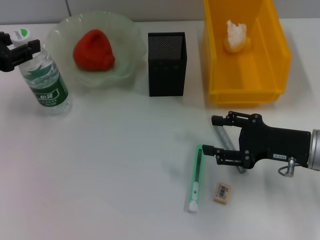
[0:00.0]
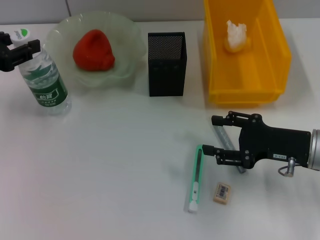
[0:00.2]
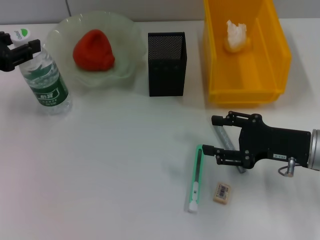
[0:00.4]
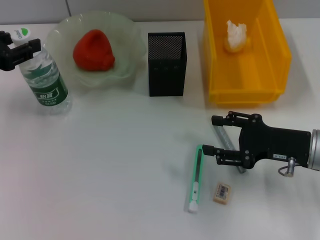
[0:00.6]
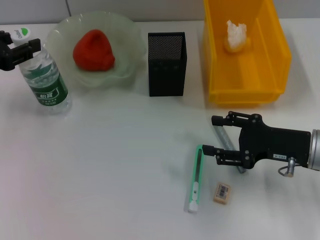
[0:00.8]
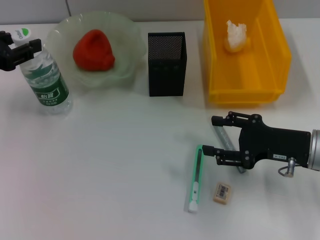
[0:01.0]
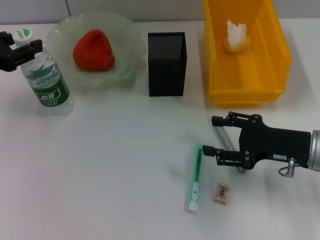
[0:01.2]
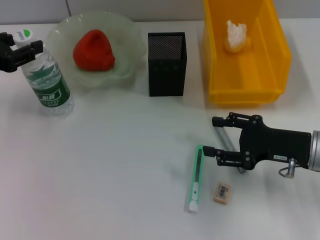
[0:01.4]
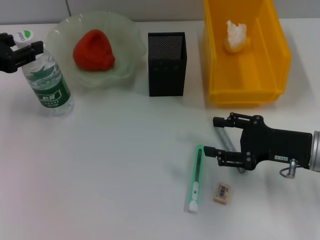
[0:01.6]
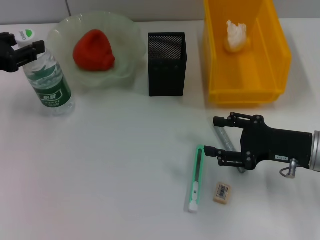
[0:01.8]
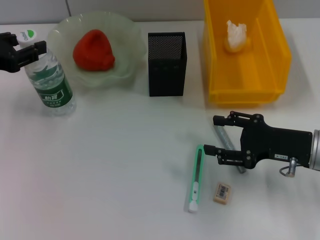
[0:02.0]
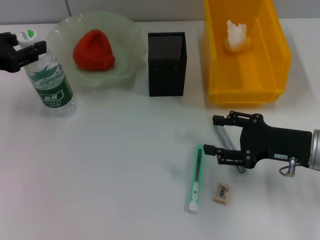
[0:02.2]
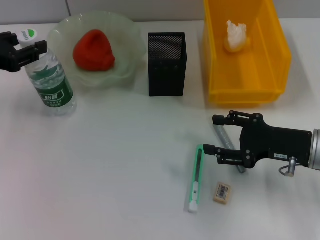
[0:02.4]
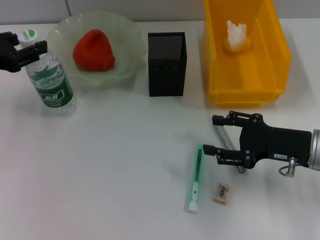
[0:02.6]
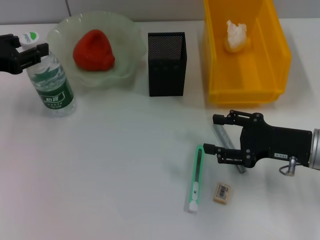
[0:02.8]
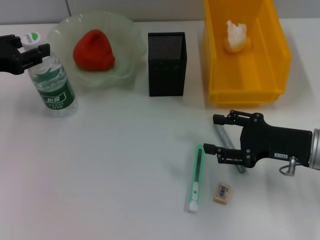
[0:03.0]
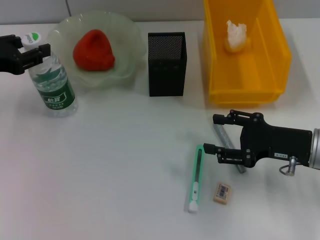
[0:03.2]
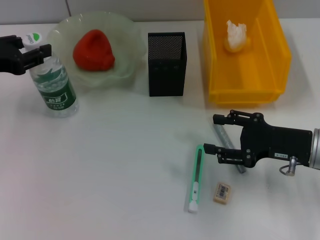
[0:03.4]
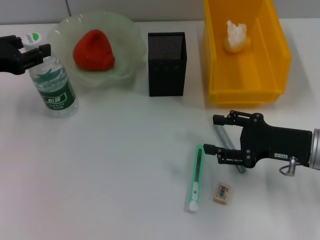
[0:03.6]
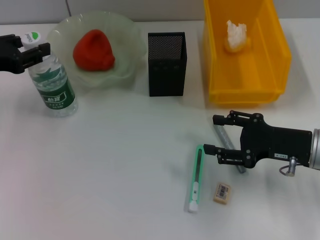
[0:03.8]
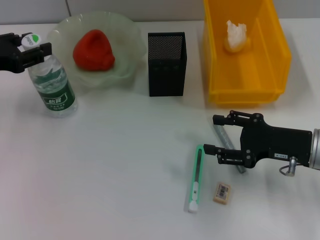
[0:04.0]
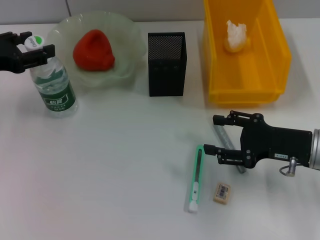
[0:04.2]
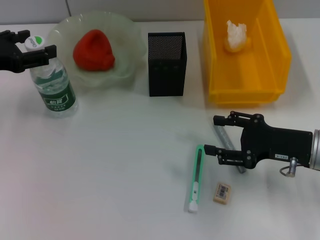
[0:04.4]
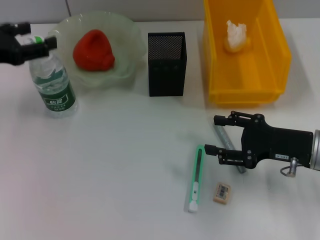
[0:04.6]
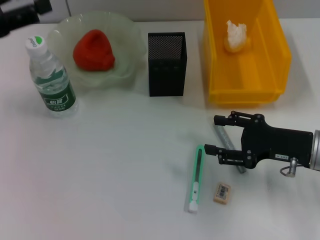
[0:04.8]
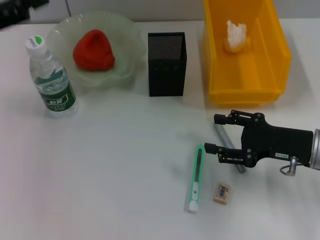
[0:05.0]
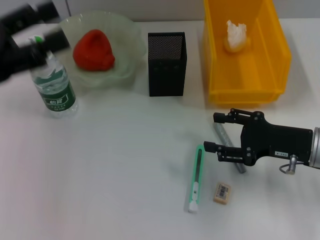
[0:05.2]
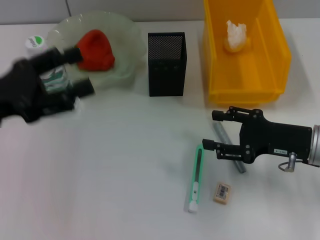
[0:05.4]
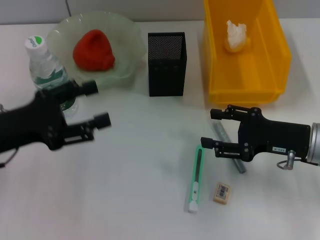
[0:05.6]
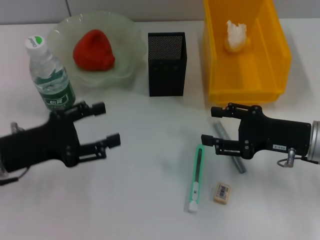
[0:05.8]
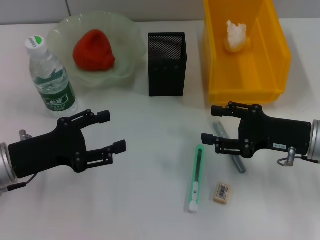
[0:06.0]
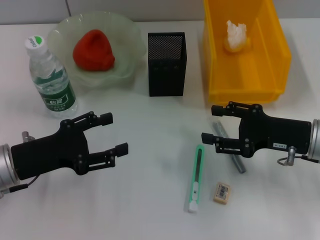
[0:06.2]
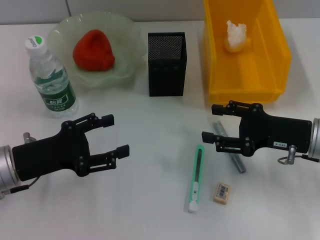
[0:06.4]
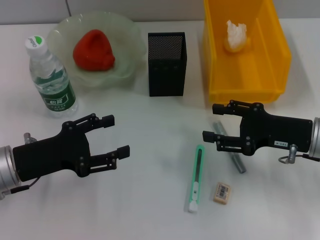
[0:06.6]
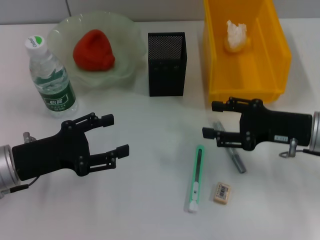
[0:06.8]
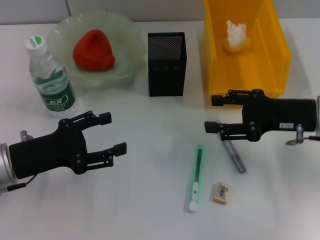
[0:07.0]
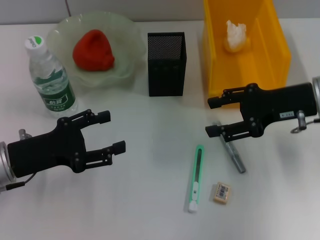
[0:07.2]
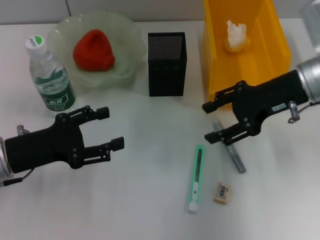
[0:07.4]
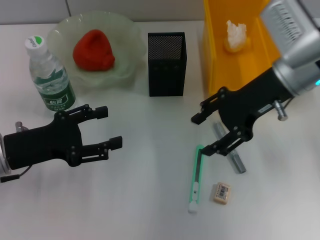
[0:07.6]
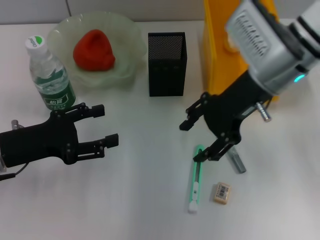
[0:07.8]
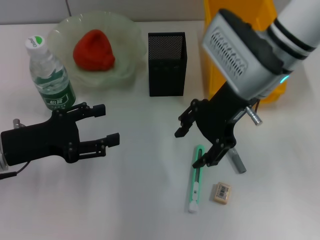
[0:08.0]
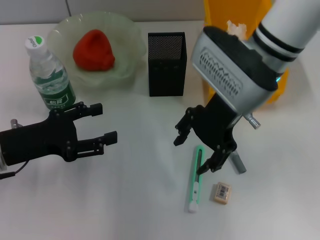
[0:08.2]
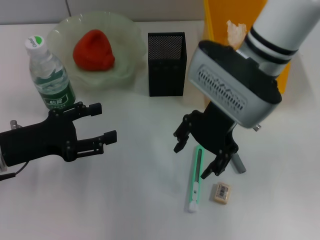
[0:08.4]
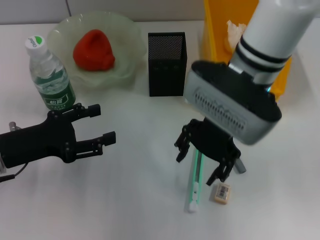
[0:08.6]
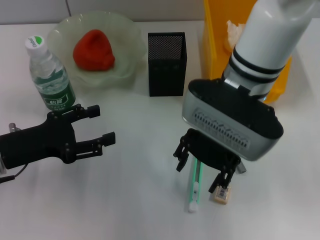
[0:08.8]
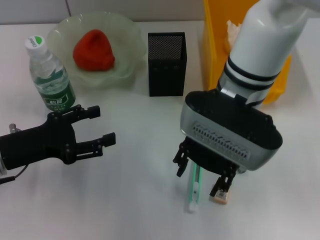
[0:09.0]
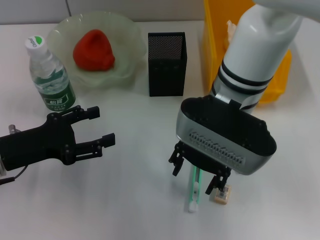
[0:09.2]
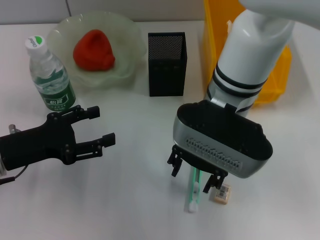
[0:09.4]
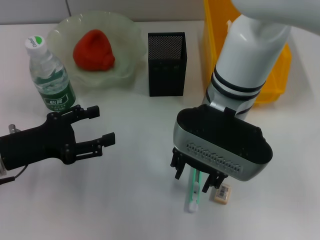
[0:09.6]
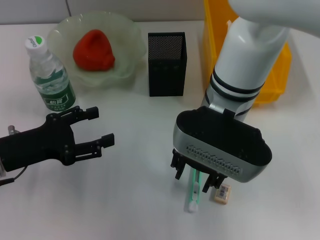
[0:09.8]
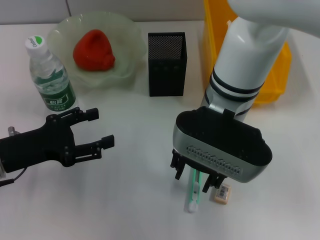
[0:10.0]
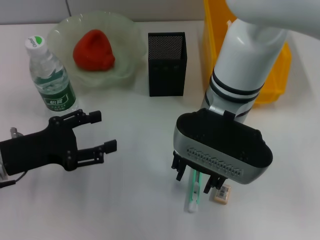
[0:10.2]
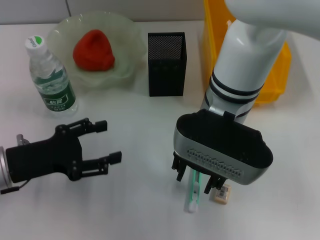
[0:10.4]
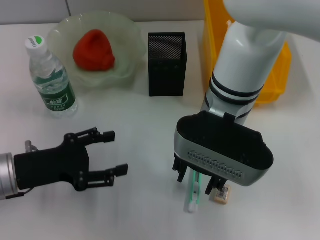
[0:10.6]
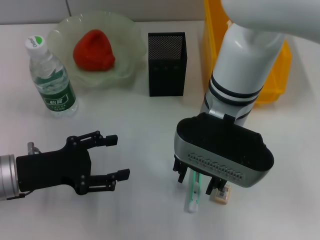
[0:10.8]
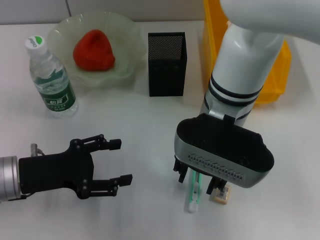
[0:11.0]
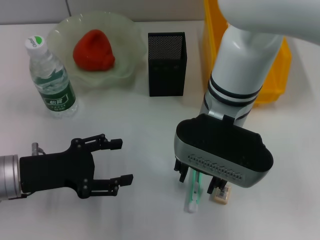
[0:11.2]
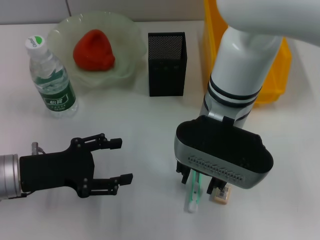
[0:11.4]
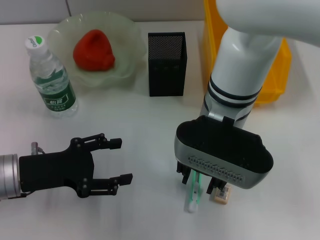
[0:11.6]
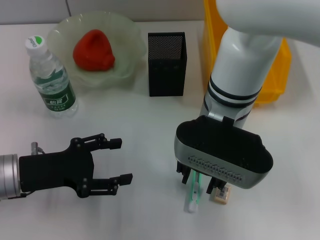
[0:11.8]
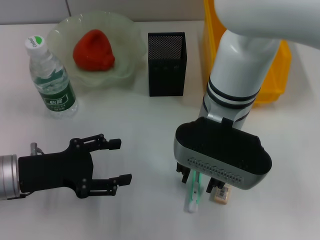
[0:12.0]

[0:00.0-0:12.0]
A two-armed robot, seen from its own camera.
Step, 0:00.0 to 0:04.4: Place the water bottle on the table with the left hand.
0:00.0 to 0:03.0: Both grippers stay put.
0:03.0 to 0:04.4: The left gripper opens its fingers.
0:04.4 to 0:06.0: The left gripper shifts approximately 15 cm downward, backward and to the right.
0:06.0 to 0:07.6: The right gripper is displaced upward, forward and to the left by approximately 15 cm.
0:07.6 to 0:09.0: The right gripper goes some 10 cm to the left.
0:10.4 to 0:12.0: The grippers move only a little.

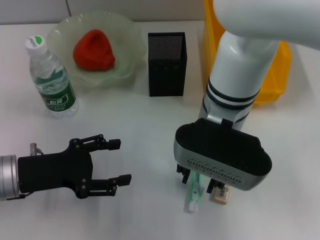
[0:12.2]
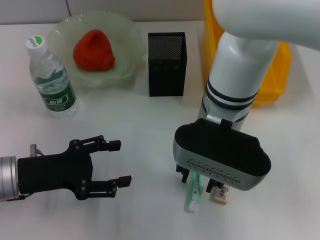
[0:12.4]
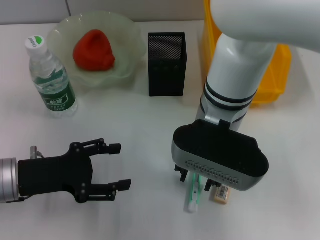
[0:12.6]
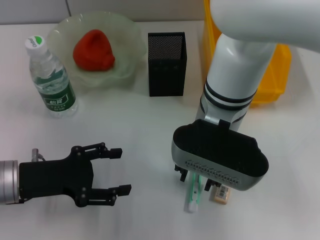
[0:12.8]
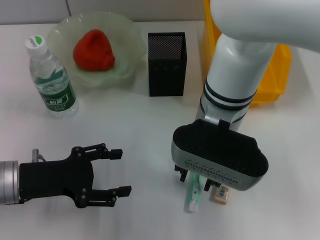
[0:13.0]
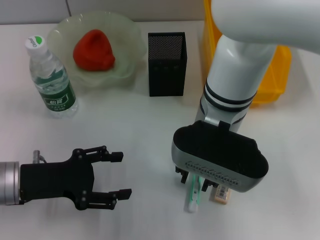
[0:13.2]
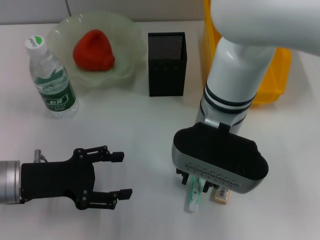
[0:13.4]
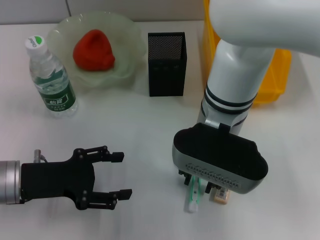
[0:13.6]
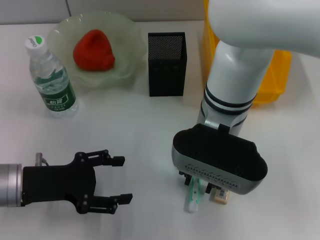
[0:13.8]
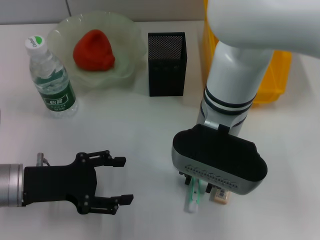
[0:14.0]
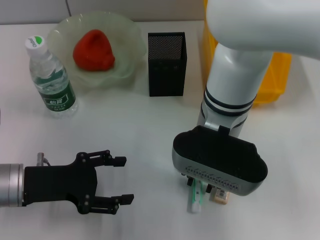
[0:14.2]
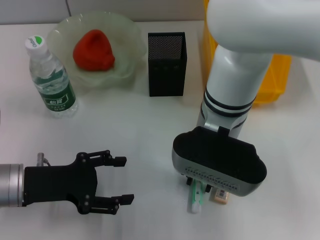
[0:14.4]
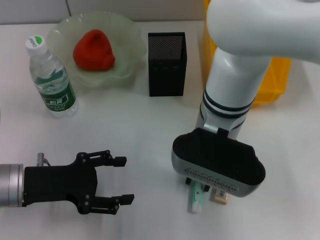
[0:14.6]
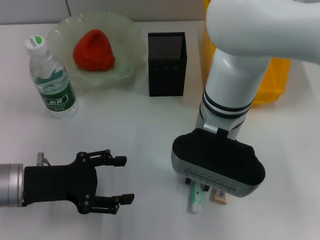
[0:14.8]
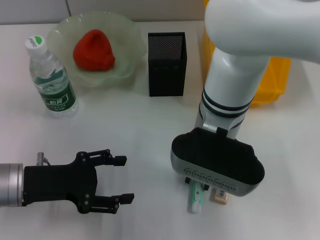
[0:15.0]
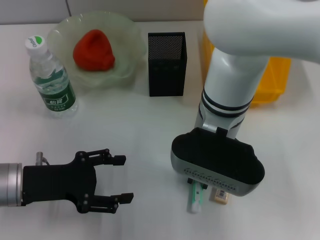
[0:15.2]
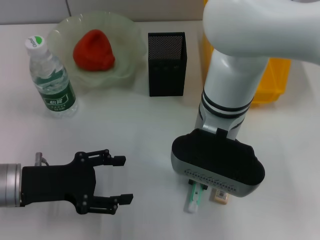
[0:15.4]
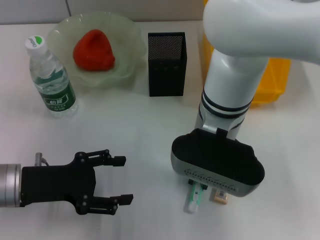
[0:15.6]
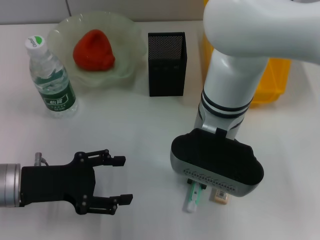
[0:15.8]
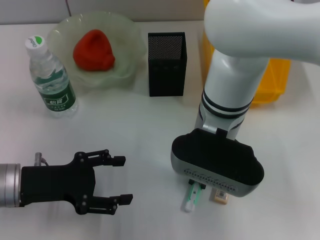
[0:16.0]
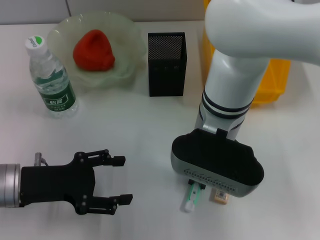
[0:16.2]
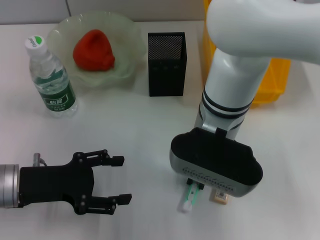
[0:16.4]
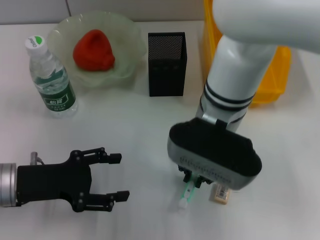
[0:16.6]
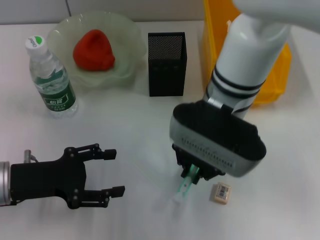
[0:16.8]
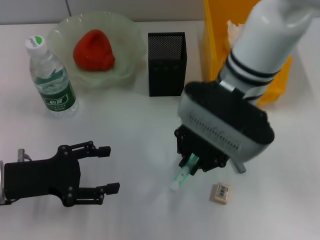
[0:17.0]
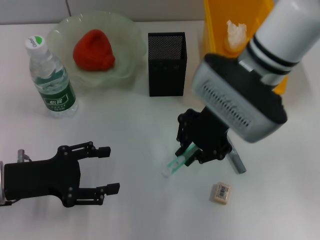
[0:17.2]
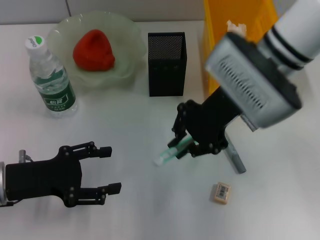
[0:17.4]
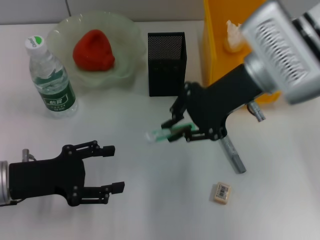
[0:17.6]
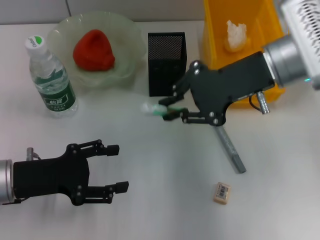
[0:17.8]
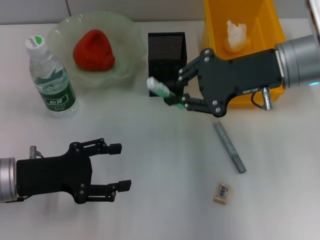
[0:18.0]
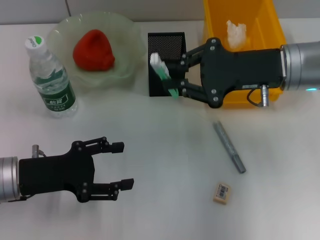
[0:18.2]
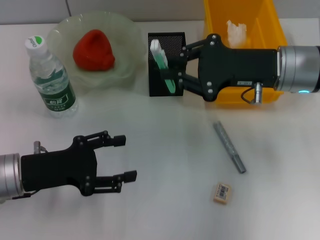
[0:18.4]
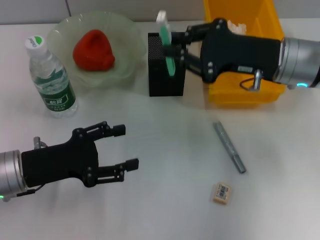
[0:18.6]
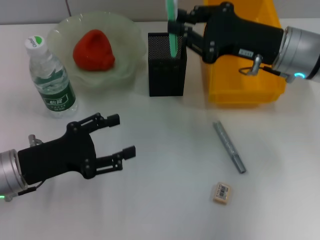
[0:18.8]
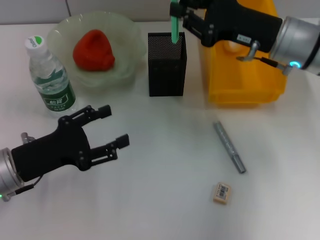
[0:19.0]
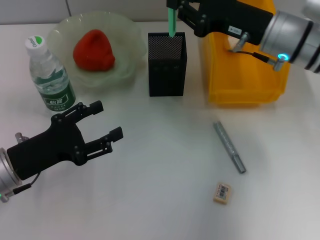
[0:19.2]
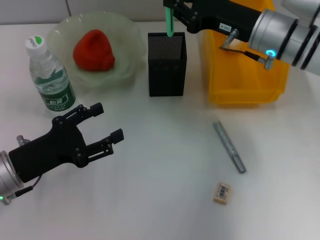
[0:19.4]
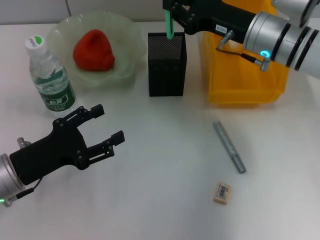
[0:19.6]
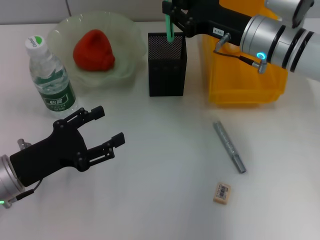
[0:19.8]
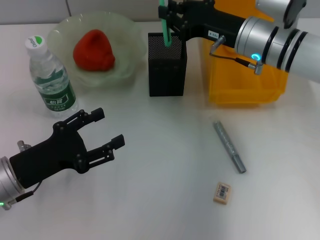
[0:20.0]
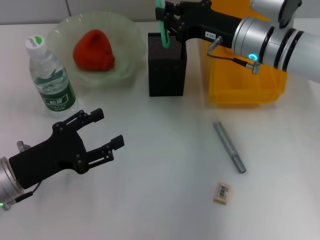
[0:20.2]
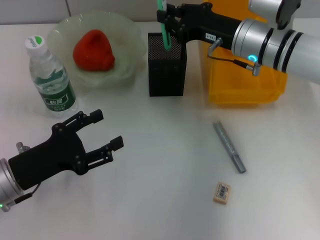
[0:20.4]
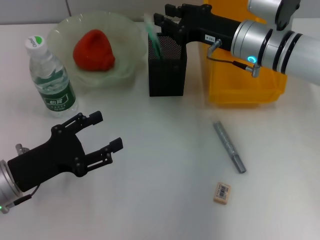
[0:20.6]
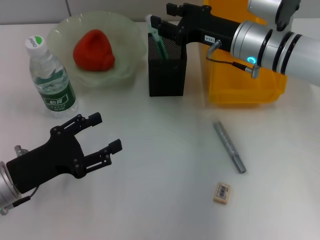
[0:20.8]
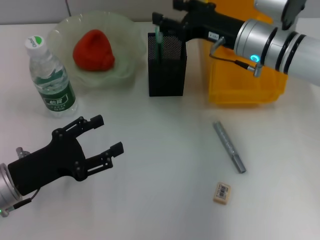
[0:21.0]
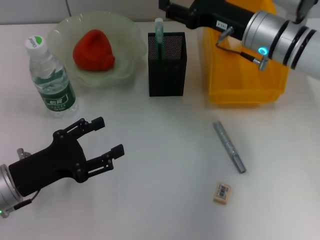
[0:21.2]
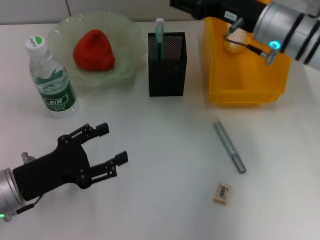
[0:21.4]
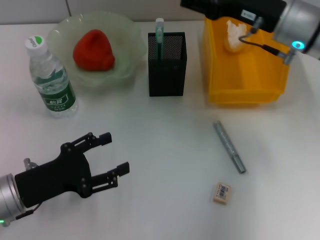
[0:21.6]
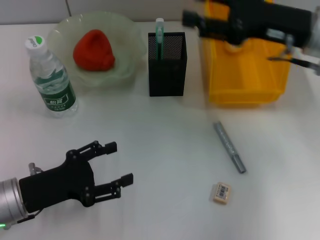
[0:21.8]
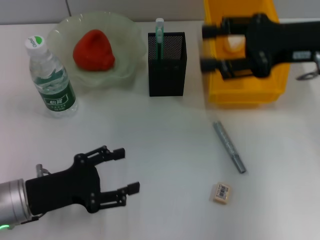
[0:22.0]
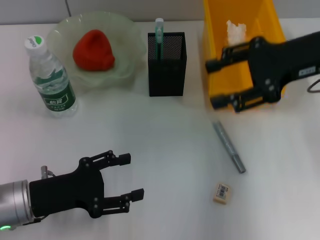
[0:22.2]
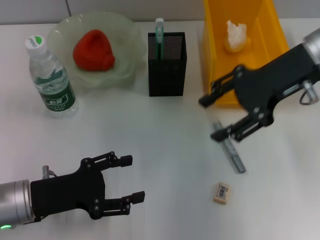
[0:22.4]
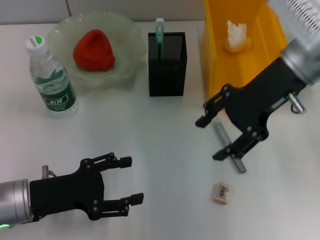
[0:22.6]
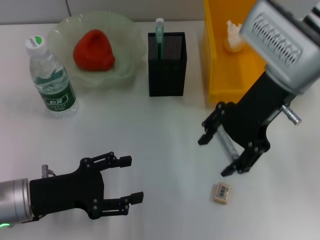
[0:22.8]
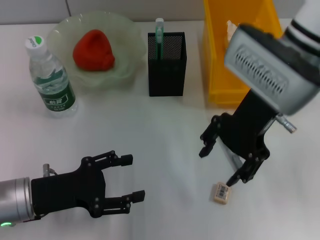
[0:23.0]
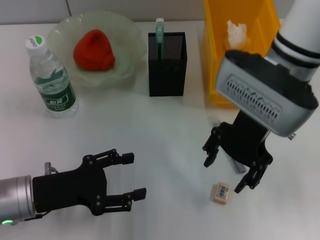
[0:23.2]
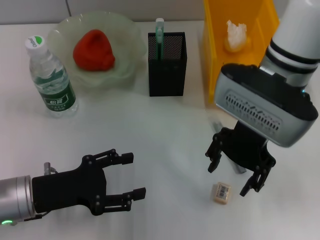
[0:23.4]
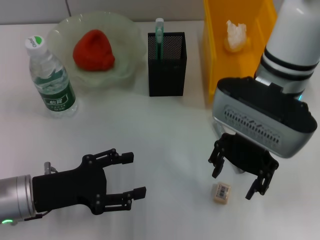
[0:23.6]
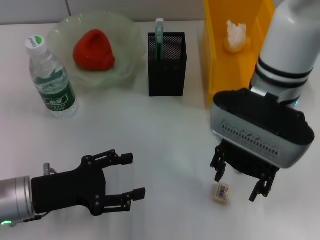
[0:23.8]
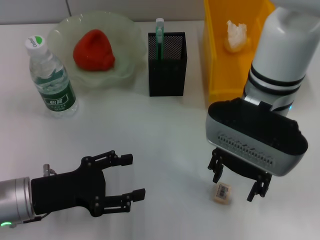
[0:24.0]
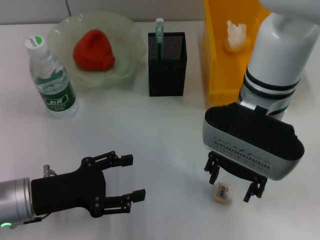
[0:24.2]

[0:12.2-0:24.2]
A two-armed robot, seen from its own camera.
Step, 0:12.2 to 0:15.6: Grab the blue utility knife with the right hand.
Step, 0:16.0 to 0:21.0: Place the blue utility knife into the pen holder with the right hand.
0:12.2 to 0:13.8: The grippers stay close to where they were, moving slightly.
0:13.8 to 0:15.2: Both grippers stay about where they are.
0:15.2 to 0:16.6: The grippers make only small movements.
0:16.6 to 0:18.2: The right gripper travels to the right by some 15 cm.
0:18.2 to 0:19.8: The right gripper shifts some 5 cm forward.
0:19.8 to 0:21.2: The right gripper opens its fingers.
0:21.2 to 0:22.6: The right gripper moves upward, approximately 10 cm.
0:22.6 to 0:24.2: The right gripper goes about 10 cm to the left.
